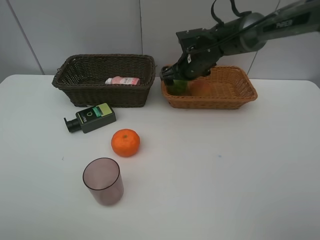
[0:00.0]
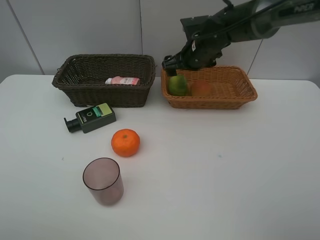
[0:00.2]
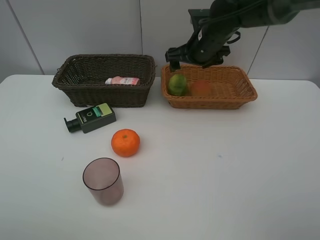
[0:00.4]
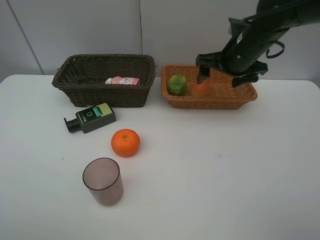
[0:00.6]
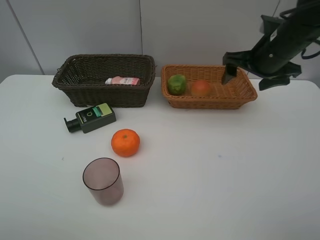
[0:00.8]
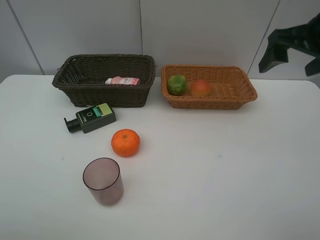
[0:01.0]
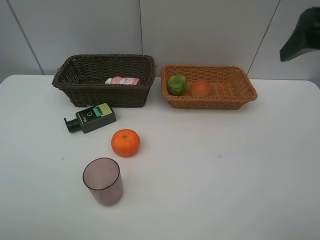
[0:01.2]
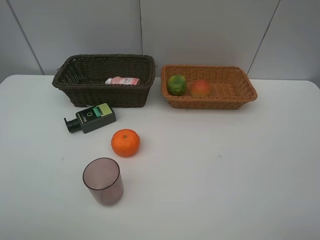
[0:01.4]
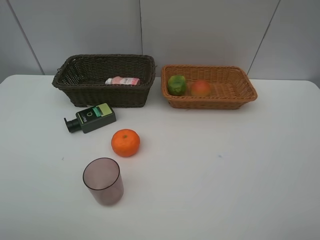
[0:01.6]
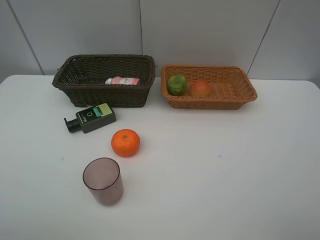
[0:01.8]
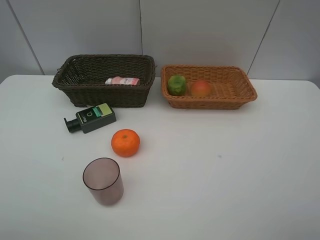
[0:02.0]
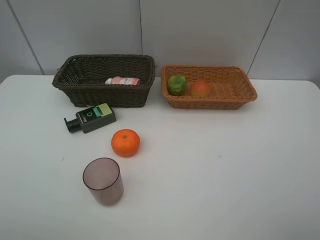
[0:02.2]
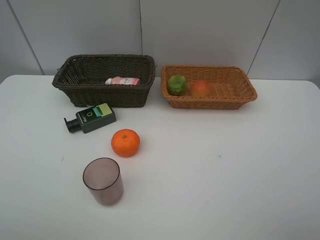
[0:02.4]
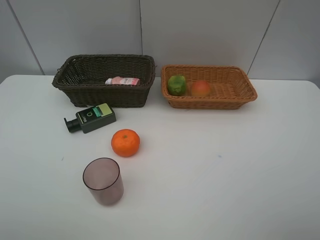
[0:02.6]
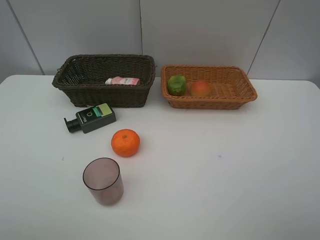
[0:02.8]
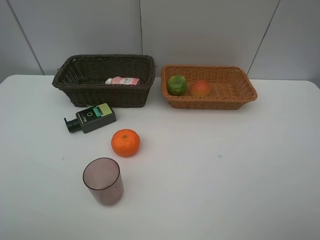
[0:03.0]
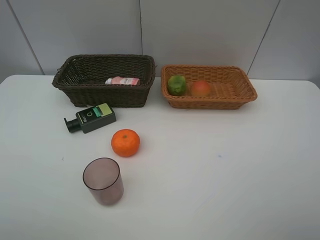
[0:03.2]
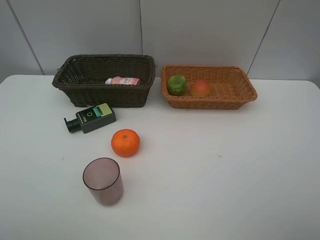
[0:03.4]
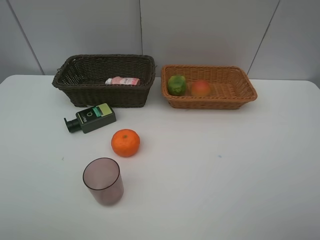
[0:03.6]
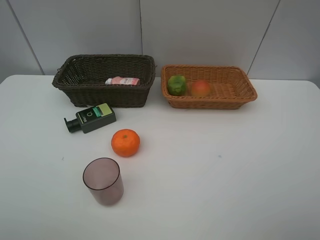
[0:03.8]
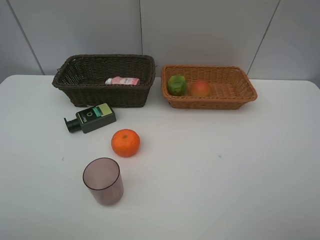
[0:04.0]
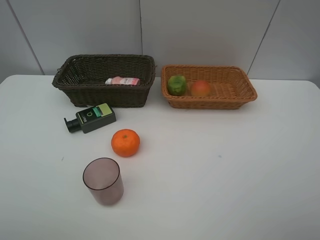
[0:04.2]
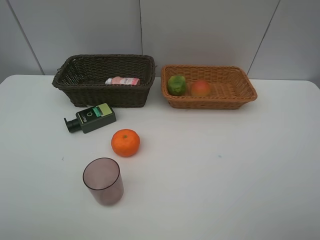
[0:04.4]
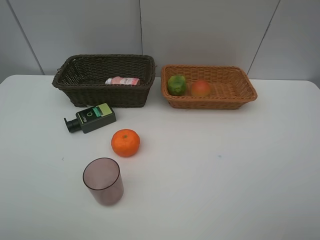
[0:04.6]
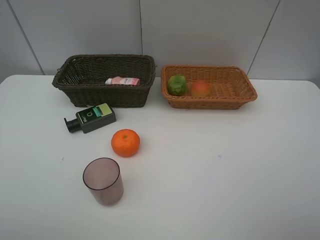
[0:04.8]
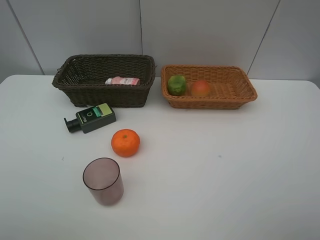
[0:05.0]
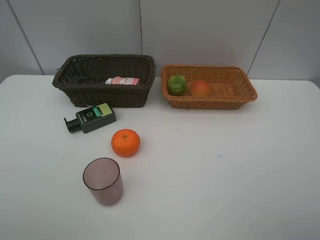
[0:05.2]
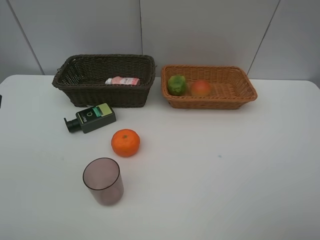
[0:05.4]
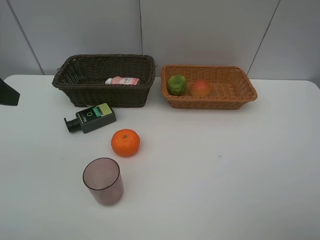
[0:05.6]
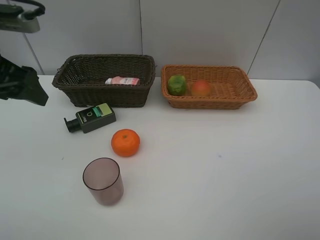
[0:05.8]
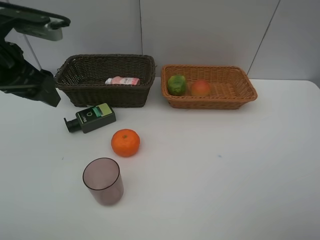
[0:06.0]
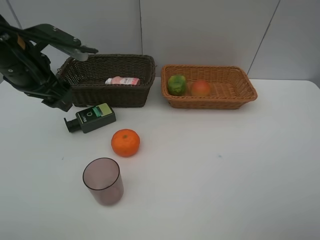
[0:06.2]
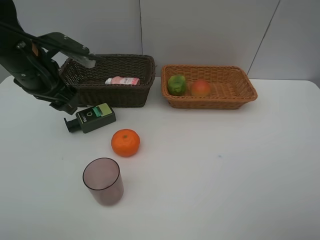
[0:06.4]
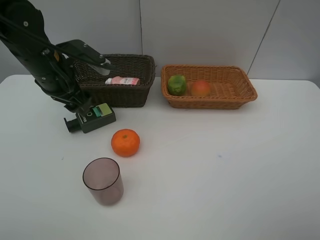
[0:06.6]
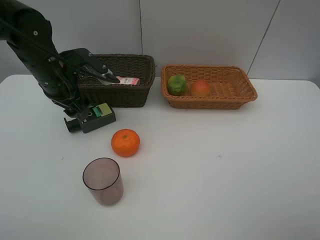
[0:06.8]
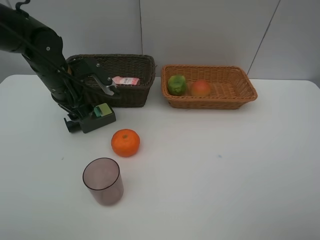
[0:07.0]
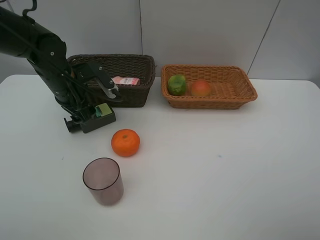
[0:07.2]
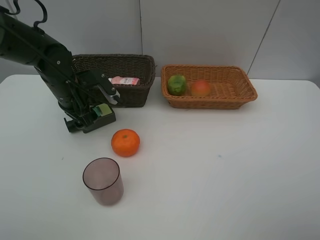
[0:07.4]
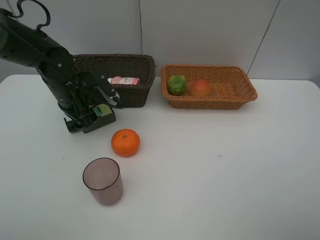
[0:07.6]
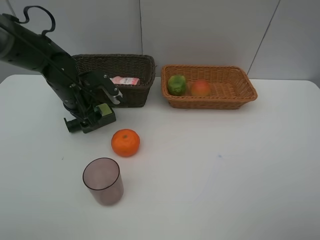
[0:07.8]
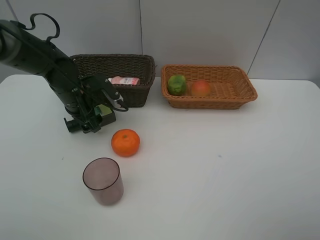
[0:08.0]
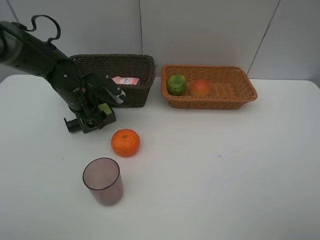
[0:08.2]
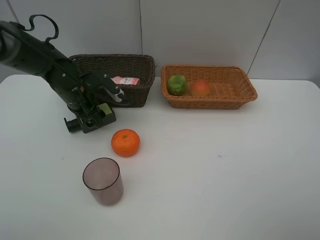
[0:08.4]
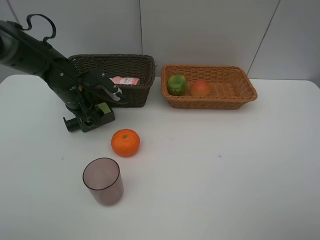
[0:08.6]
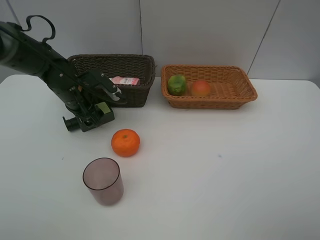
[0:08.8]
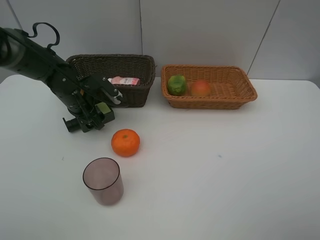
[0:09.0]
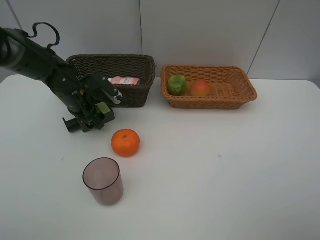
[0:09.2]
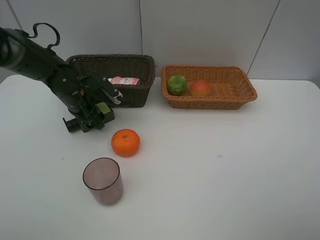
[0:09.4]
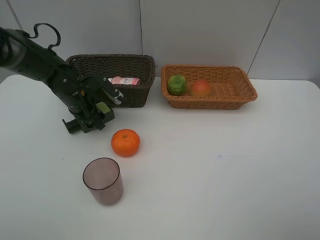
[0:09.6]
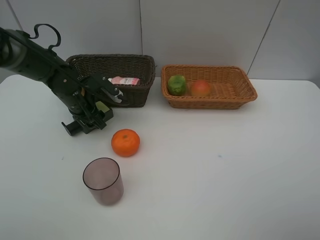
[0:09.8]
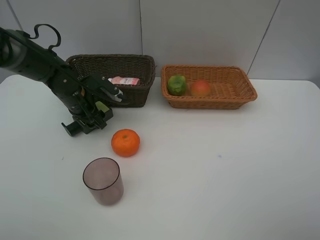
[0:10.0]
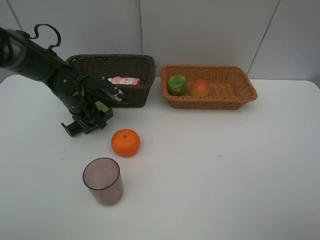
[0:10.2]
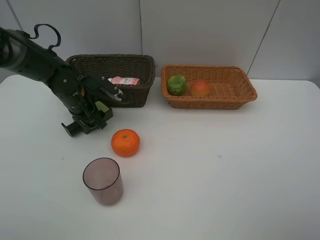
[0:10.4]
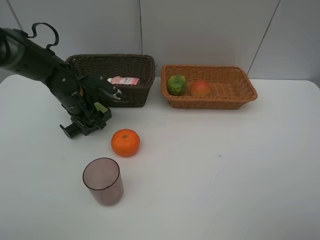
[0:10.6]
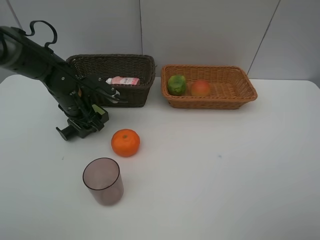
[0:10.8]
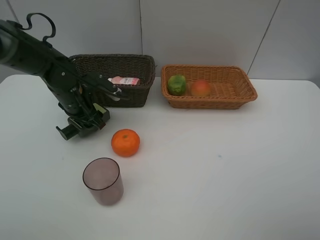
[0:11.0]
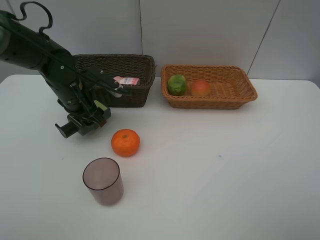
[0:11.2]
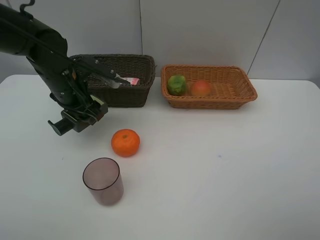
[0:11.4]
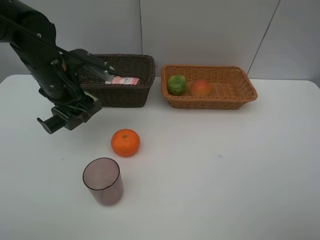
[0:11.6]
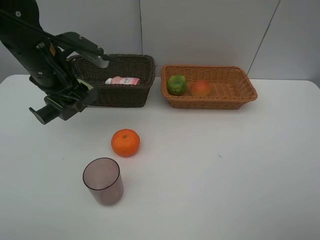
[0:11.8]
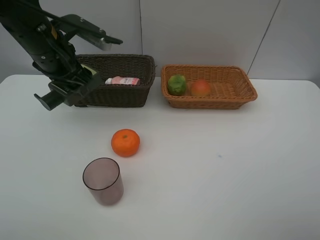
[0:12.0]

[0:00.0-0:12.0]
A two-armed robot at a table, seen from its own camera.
Task of the whole recording: place multiple objects separately in different baskets.
0:00.0 to 0:01.6: The right gripper travels backward, upward and to the right by roughly 50 cm.
0:03.0 to 0:04.4: Both grippers stay about where they are.
0:04.4 to 0:06.0: The left gripper goes approximately 25 cm forward.
0:06.0 to 0:07.6: The left gripper shifts roughly 15 cm downward and forward.
0:07.6 to 0:10.4: The grippers make only small movements.
0:10.4 to 0:12.0: The left gripper heads upward, covering about 15 cm.

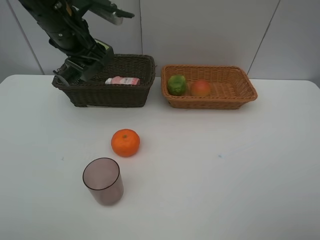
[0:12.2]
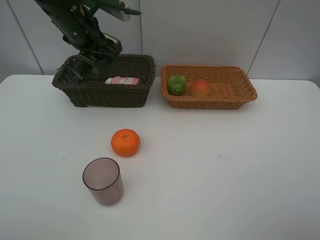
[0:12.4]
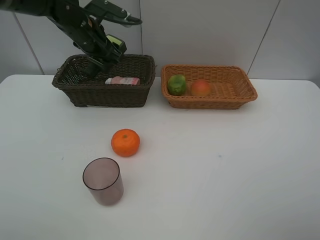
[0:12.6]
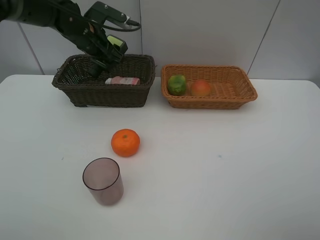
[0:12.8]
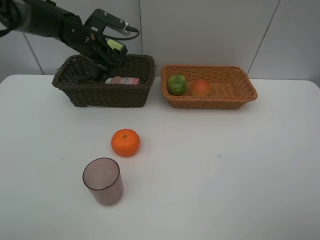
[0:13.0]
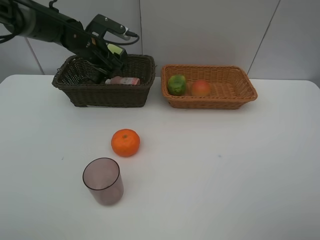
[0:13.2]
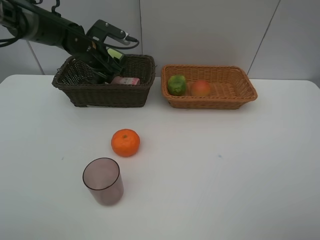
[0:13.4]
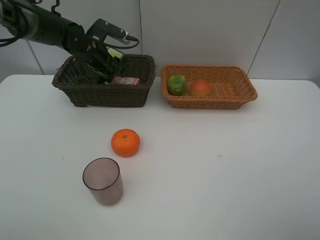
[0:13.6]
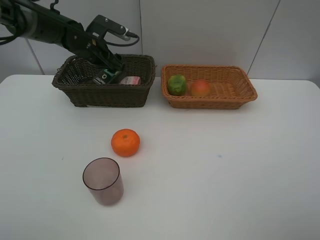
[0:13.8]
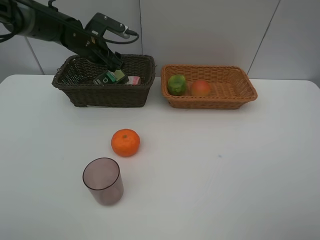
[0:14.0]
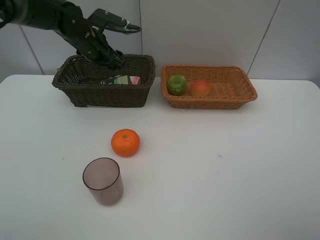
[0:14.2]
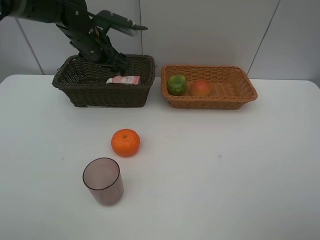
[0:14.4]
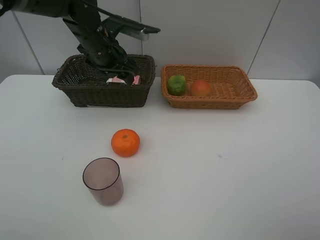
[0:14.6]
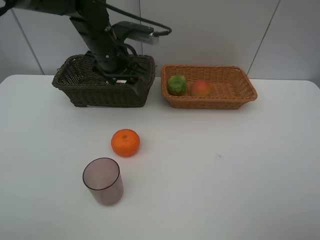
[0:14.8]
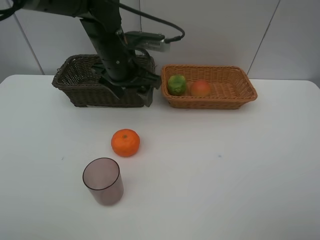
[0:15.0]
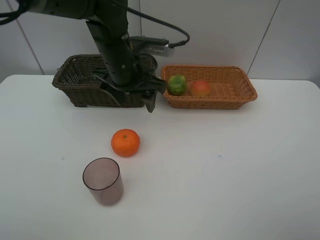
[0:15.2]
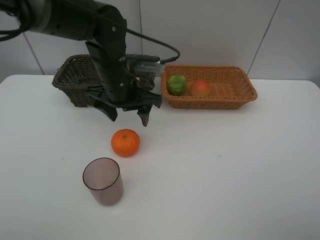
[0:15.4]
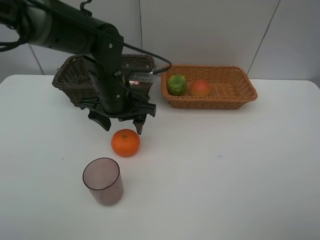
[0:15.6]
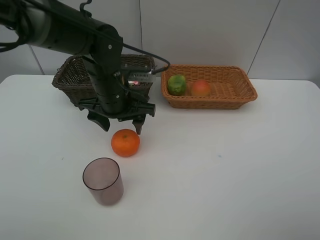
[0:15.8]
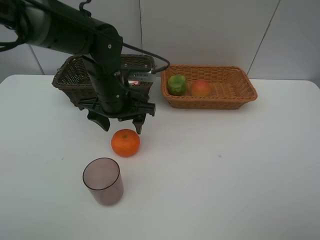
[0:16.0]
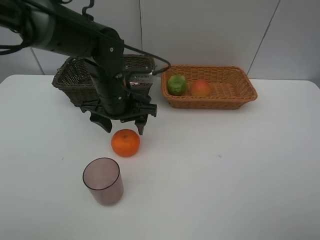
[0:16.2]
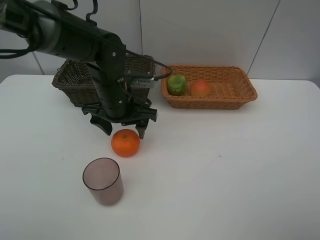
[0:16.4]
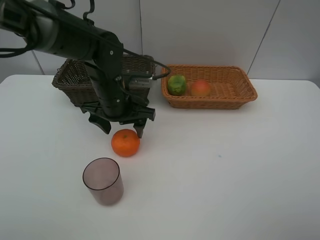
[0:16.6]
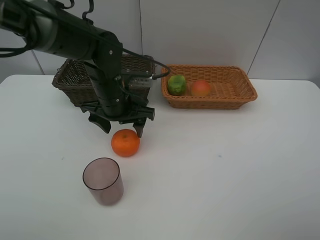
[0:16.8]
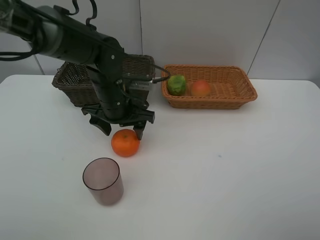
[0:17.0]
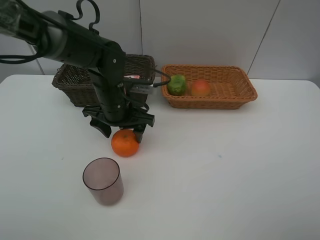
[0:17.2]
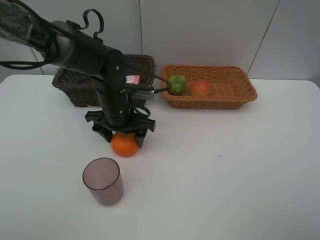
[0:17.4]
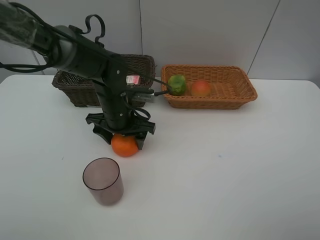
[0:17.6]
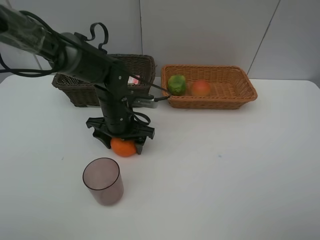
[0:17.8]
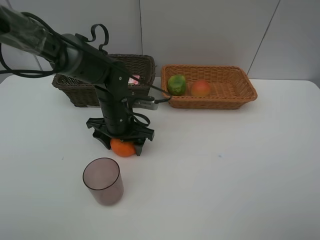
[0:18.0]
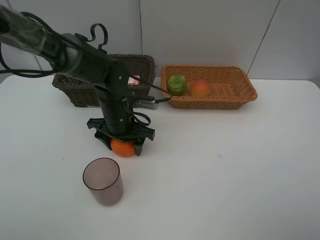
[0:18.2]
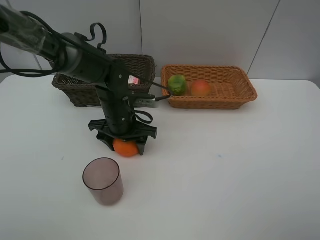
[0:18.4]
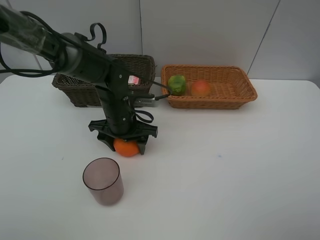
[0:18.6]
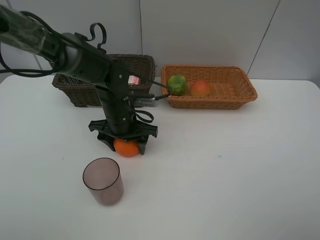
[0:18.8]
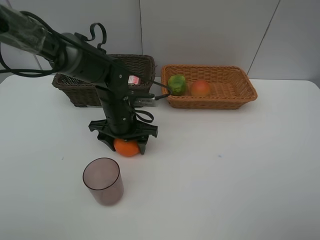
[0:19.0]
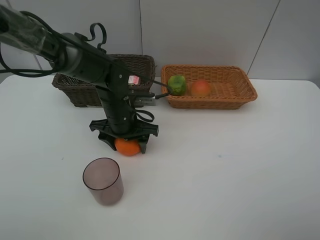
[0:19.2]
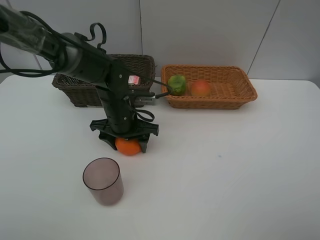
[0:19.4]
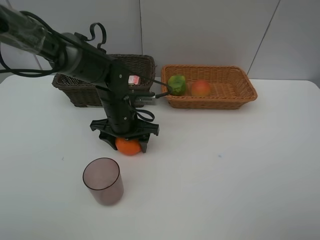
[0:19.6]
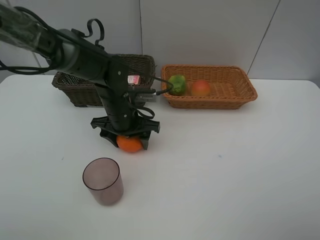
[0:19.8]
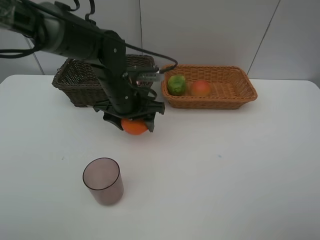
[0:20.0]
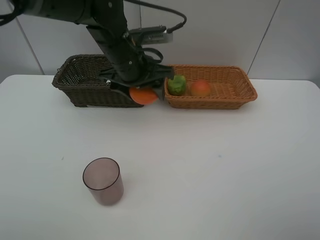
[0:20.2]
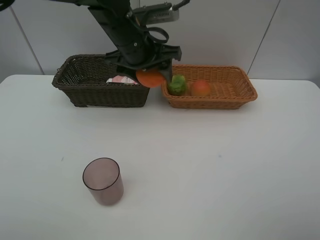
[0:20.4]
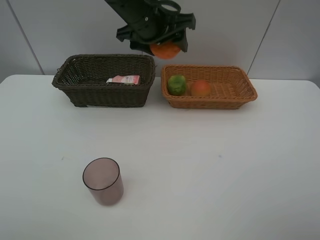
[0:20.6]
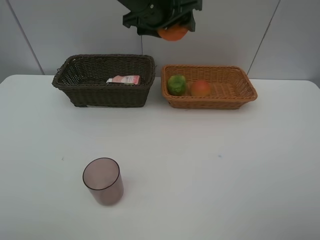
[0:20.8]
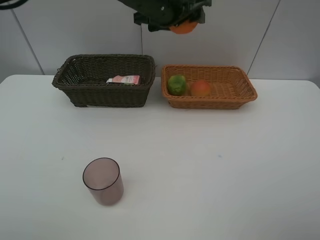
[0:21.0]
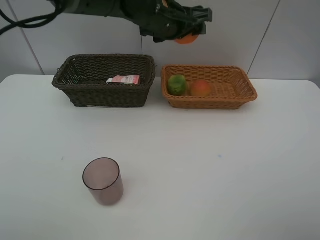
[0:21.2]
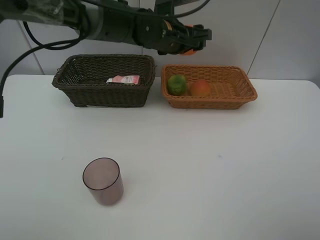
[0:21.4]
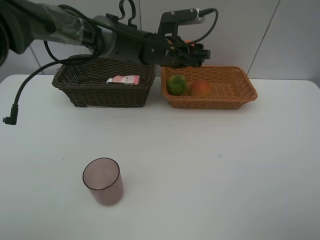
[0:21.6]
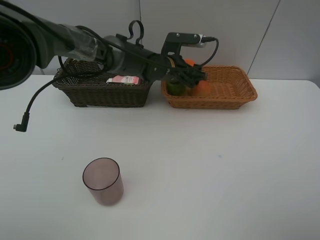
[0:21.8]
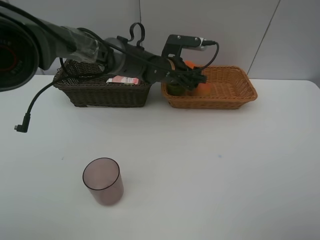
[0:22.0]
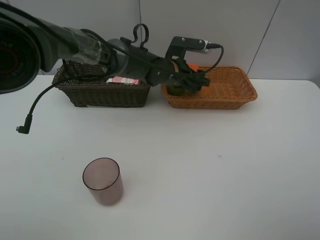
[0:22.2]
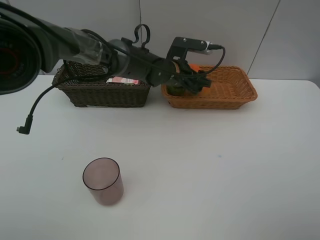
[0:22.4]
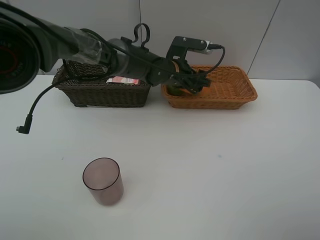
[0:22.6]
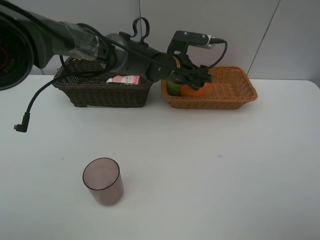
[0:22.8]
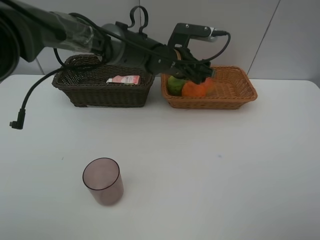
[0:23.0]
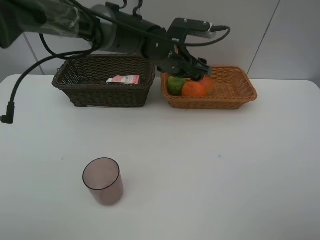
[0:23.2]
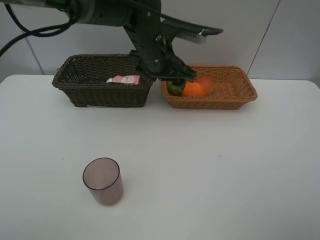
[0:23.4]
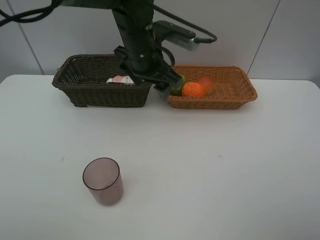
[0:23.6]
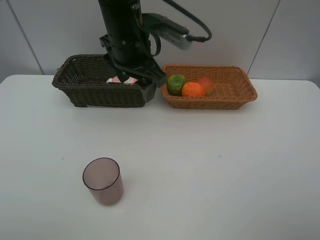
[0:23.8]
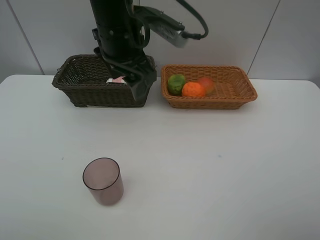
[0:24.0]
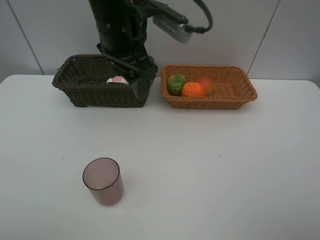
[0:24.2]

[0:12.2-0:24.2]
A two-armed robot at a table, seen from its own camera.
Task of the whole recording: place multiple objects separately in different baskets.
0:12.2 to 0:13.8: The left gripper goes about 15 cm downward and forward.
0:13.8 to 0:15.2: The left gripper travels backward and to the right by approximately 15 cm.
0:15.2 to 0:16.6: The left gripper is displaced downward by some 5 cm.
0:16.6 to 0:18.2: The left gripper heads downward, covering approximately 5 cm.
0:18.2 to 0:19.8: There are only small adjustments of the grippers.
0:19.8 to 0:21.2: The left gripper travels upward, to the right and forward by some 20 cm.
0:21.2 to 0:22.6: The left gripper heads downward, covering about 10 cm.
0:22.6 to 0:24.2: The left gripper heads upward, backward and to the left, covering about 20 cm.
